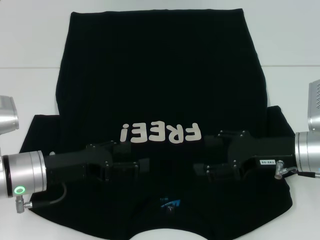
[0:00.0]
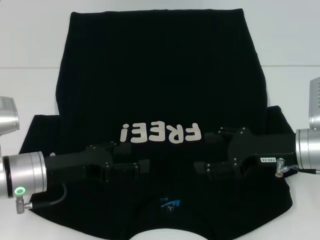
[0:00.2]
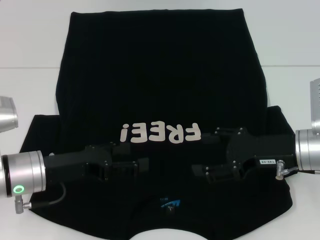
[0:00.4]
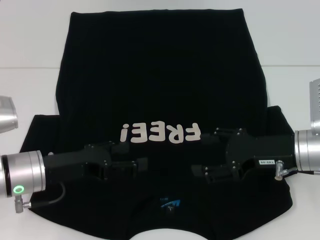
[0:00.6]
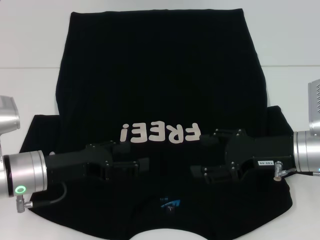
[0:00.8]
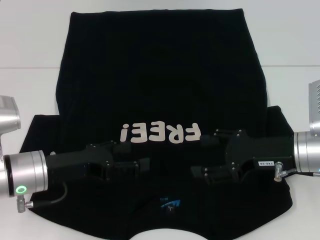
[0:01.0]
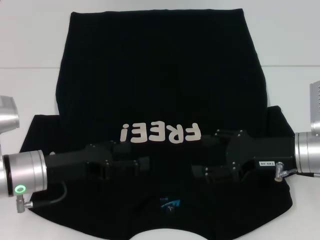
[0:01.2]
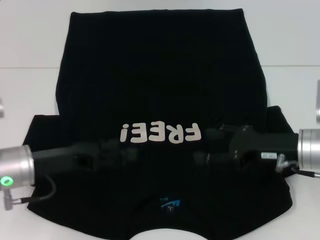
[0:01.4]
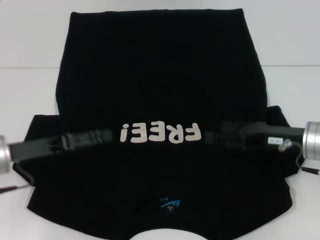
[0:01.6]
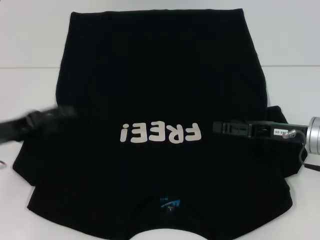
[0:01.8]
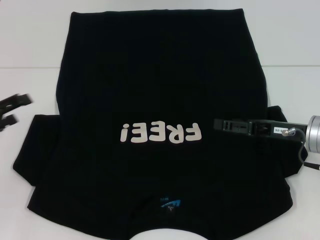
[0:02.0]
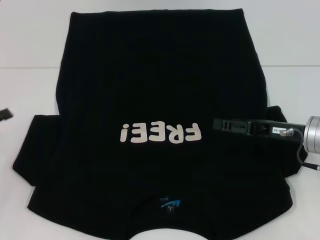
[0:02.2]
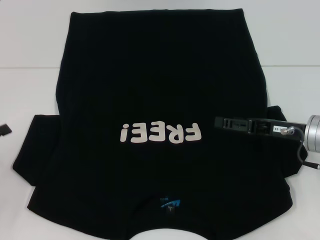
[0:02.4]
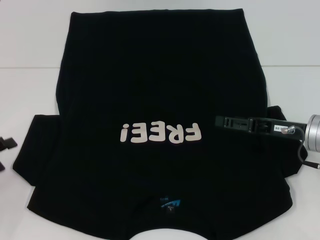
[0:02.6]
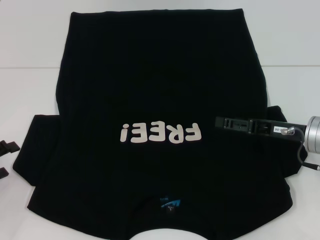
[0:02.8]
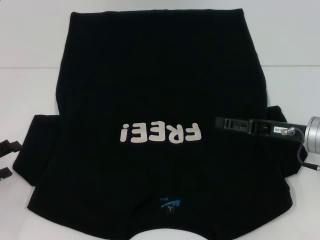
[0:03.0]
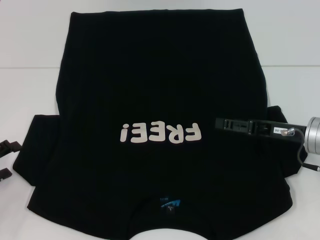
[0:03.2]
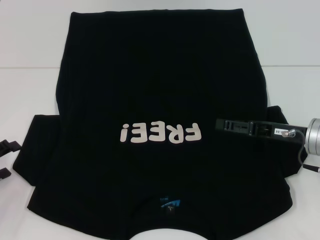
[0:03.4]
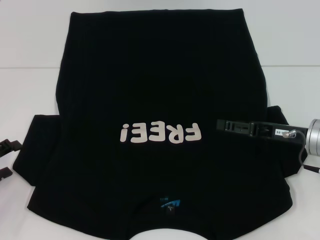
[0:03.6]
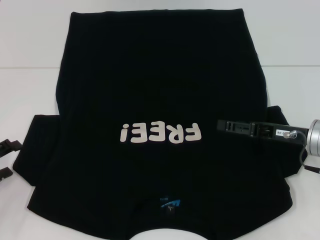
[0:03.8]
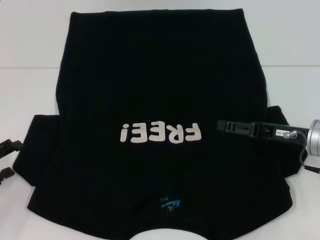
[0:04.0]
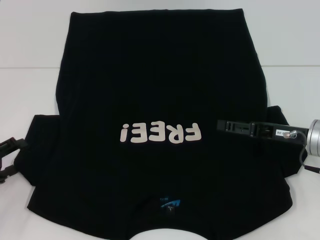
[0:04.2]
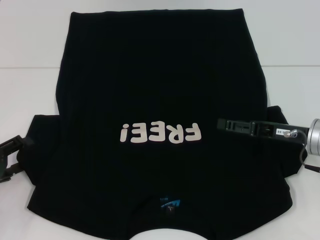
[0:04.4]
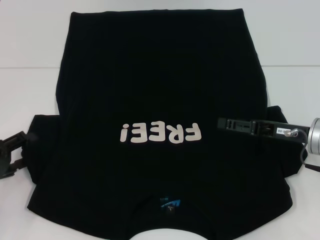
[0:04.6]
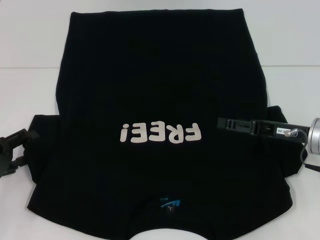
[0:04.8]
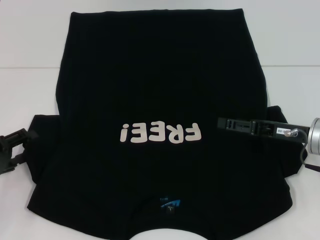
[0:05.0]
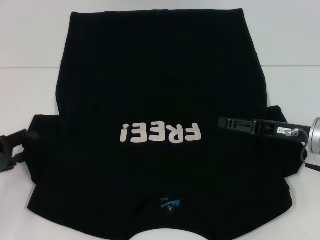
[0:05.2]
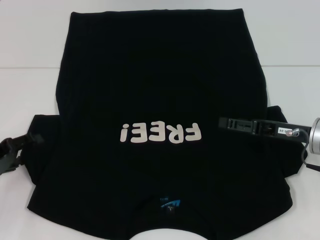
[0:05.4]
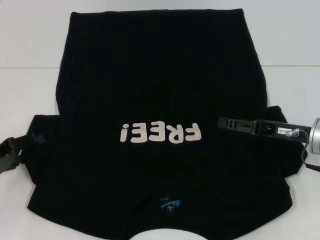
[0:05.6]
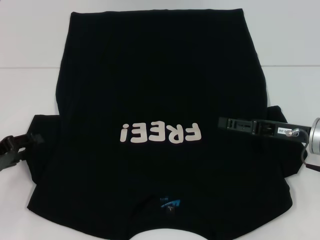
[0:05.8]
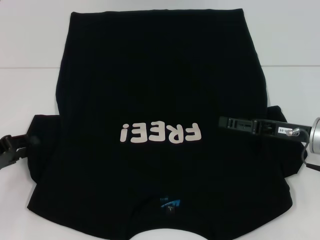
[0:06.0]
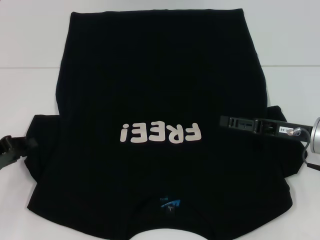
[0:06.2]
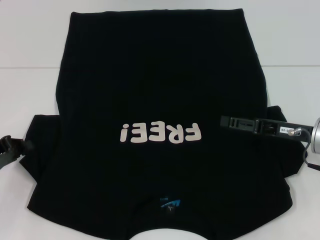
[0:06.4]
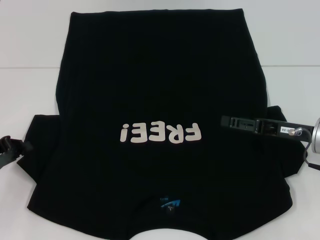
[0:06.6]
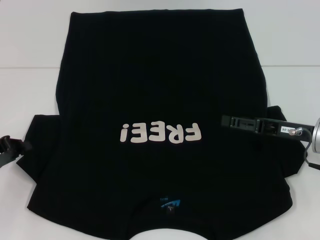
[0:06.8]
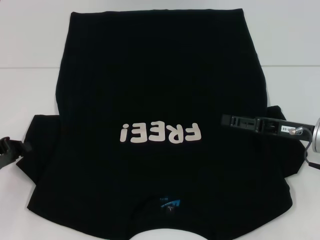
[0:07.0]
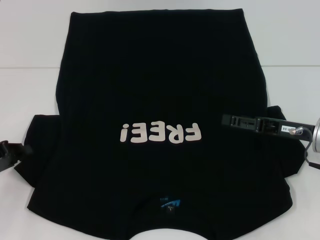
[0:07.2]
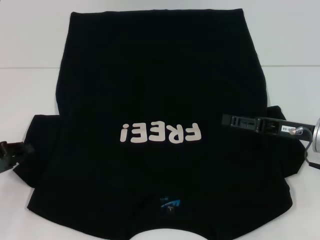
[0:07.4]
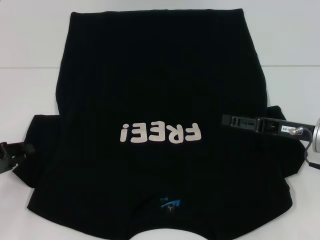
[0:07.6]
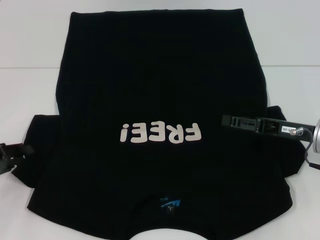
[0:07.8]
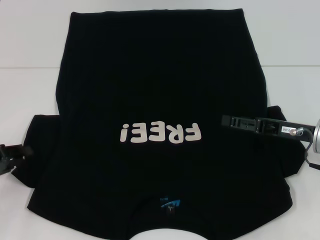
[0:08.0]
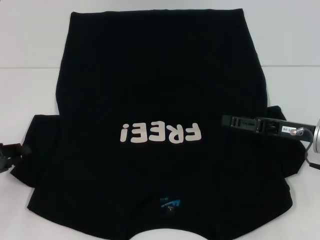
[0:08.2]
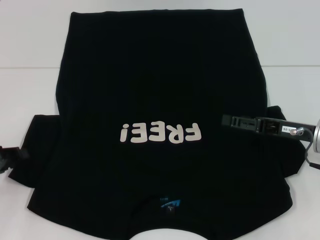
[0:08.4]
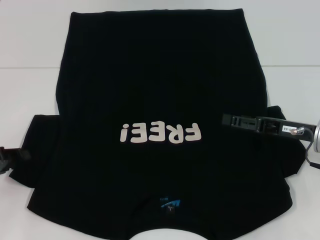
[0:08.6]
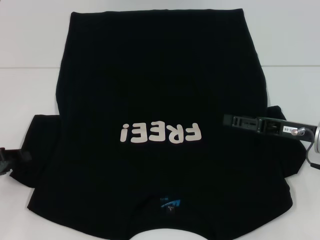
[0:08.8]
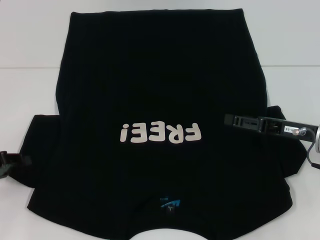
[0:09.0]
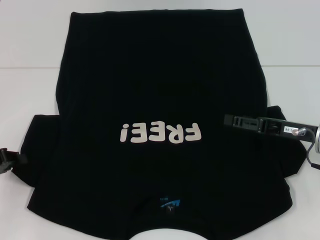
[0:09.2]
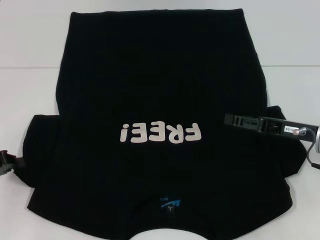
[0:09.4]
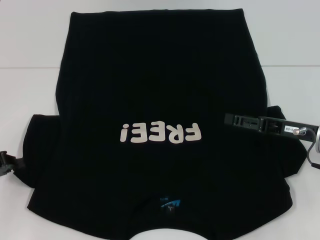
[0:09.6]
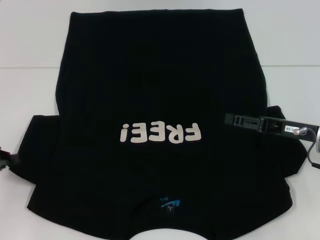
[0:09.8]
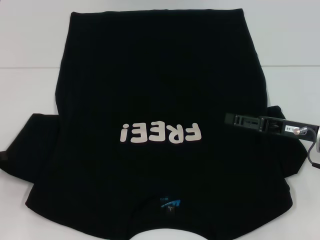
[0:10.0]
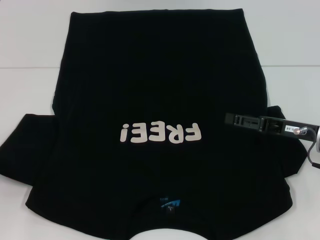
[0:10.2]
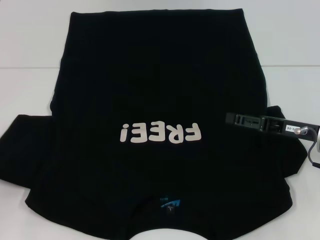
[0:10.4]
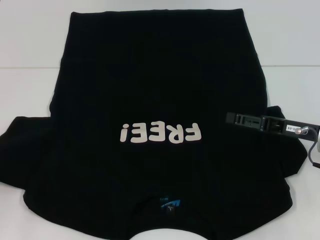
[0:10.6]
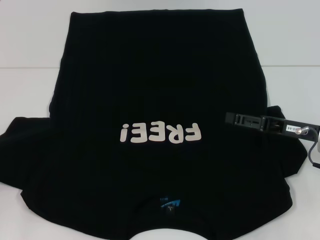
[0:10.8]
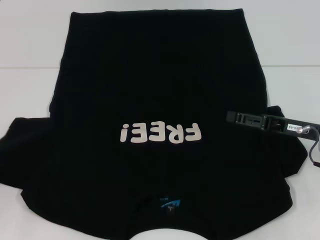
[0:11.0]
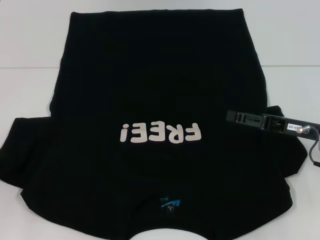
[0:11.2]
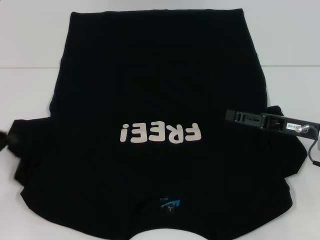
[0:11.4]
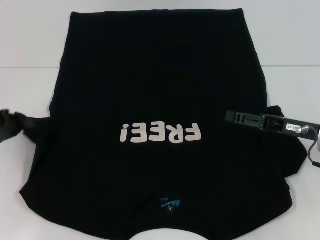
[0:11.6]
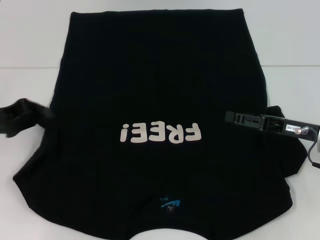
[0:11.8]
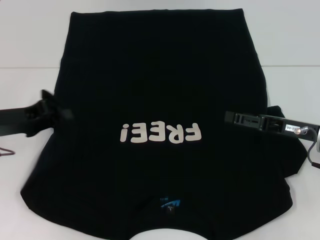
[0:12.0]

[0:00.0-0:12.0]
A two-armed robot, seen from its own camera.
0:00.0 to 0:01.6: The left gripper moves to the left, some 5 cm.
0:01.6 to 0:03.0: The left gripper goes roughly 10 cm to the left and backward.
0:03.0 to 0:06.0: The grippers move only a little.
0:06.0 to 0:07.6: The left gripper closes its fingers.
0:07.6 to 0:09.0: The grippers move only a little.
0:09.0 to 0:10.4: The left gripper closes its fingers.
0:10.4 to 0:12.0: The left gripper is displaced to the right and forward by some 10 cm.

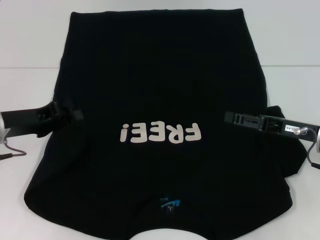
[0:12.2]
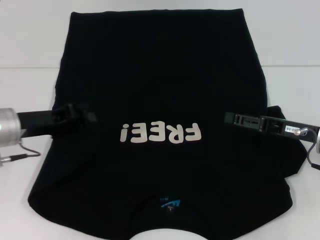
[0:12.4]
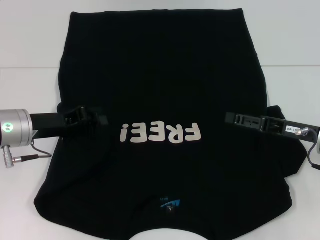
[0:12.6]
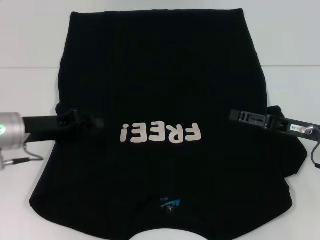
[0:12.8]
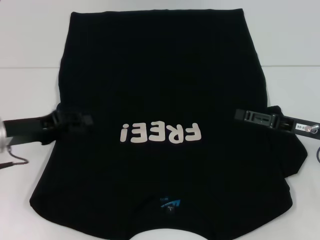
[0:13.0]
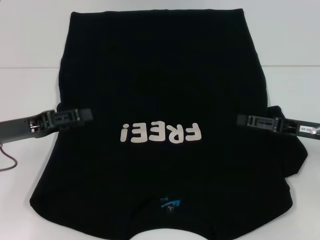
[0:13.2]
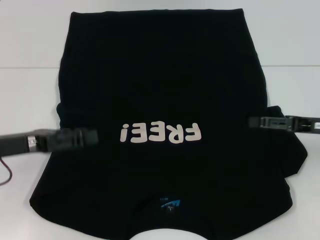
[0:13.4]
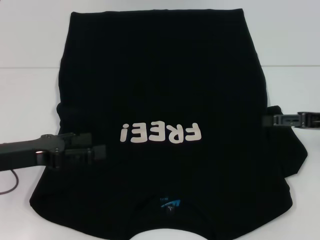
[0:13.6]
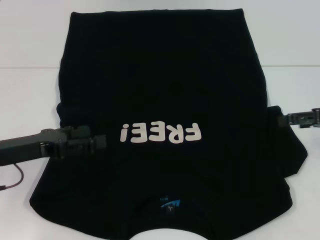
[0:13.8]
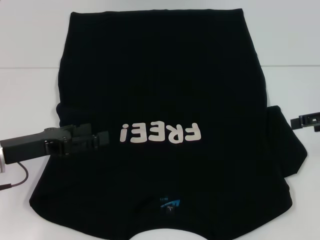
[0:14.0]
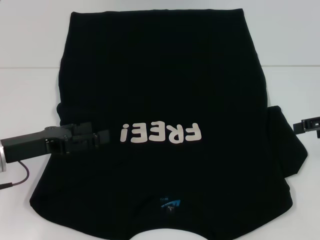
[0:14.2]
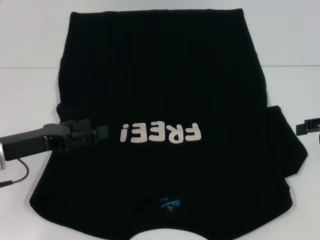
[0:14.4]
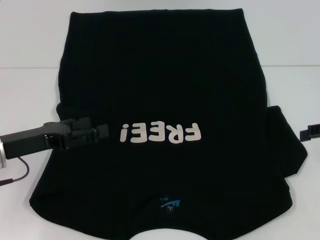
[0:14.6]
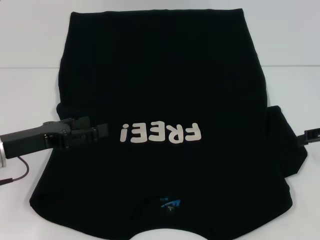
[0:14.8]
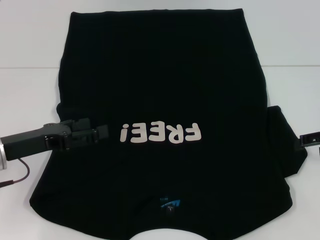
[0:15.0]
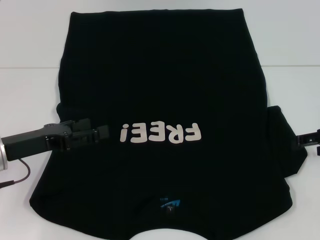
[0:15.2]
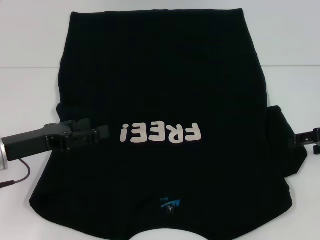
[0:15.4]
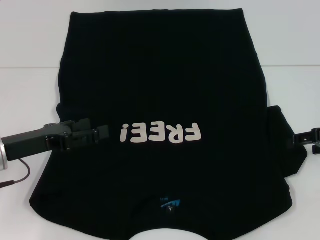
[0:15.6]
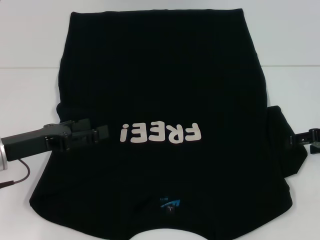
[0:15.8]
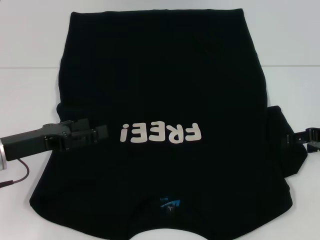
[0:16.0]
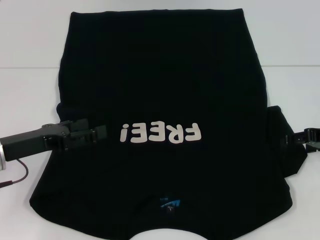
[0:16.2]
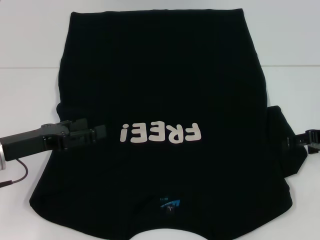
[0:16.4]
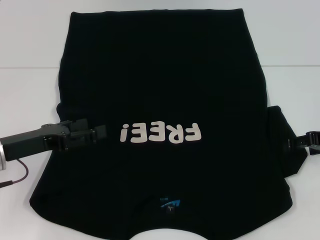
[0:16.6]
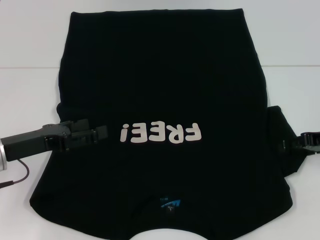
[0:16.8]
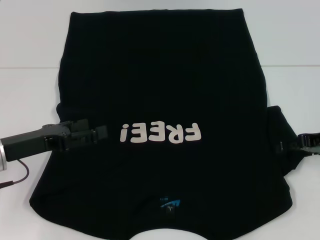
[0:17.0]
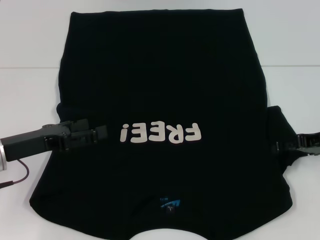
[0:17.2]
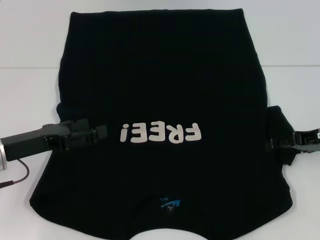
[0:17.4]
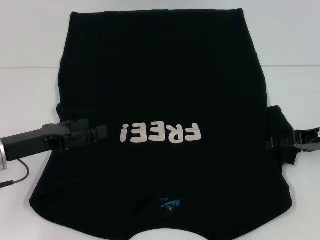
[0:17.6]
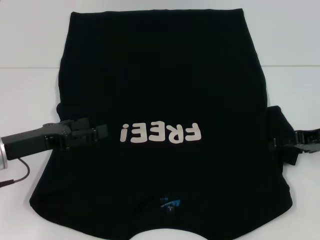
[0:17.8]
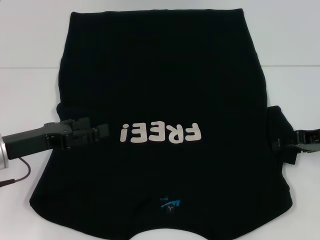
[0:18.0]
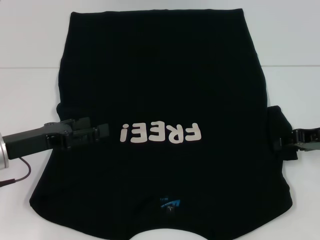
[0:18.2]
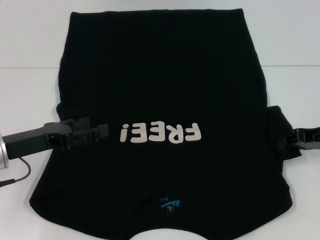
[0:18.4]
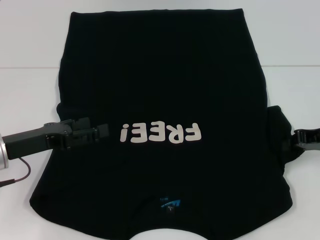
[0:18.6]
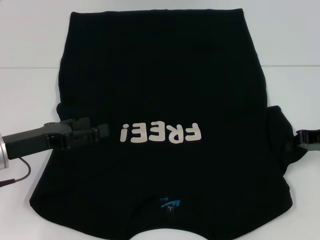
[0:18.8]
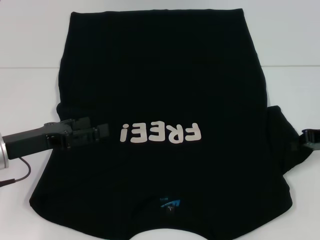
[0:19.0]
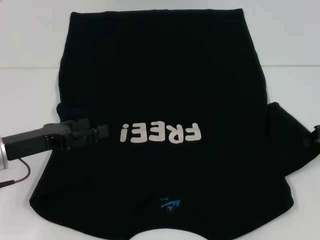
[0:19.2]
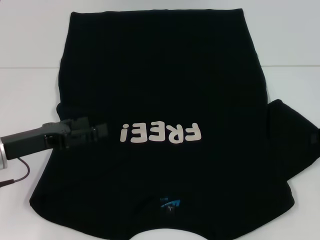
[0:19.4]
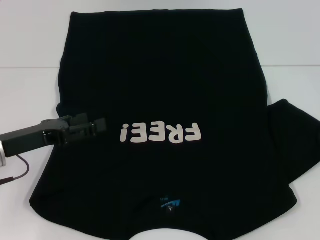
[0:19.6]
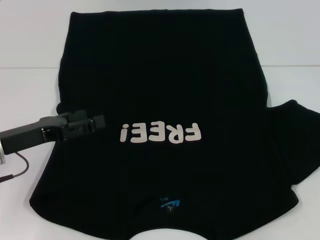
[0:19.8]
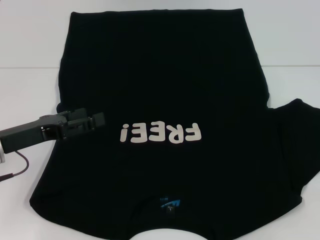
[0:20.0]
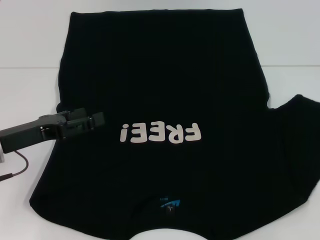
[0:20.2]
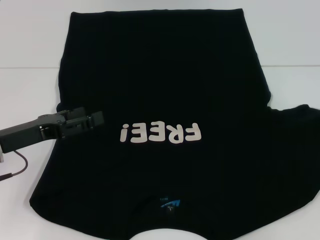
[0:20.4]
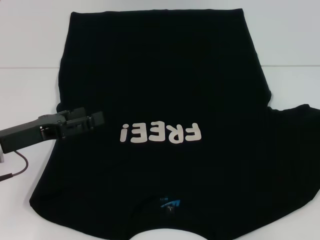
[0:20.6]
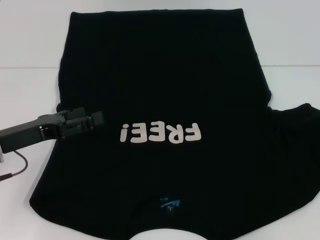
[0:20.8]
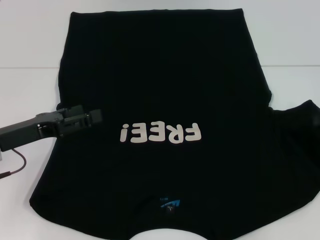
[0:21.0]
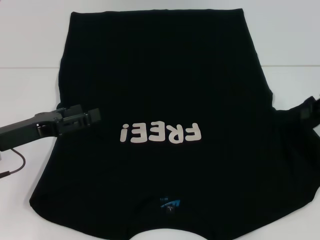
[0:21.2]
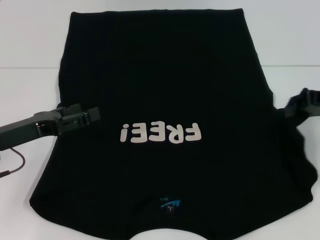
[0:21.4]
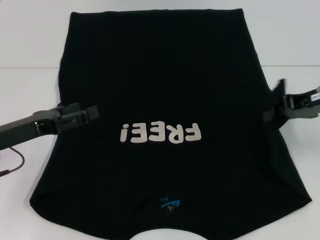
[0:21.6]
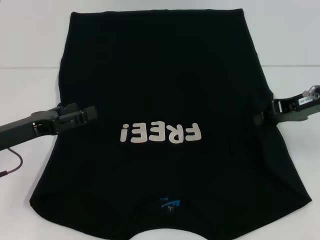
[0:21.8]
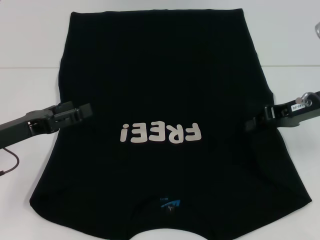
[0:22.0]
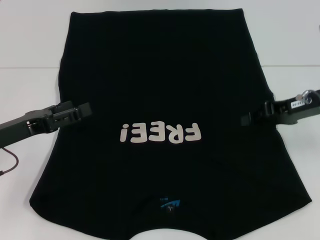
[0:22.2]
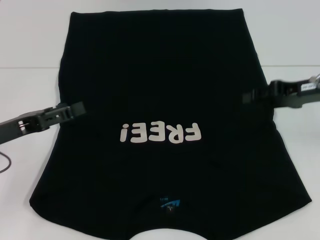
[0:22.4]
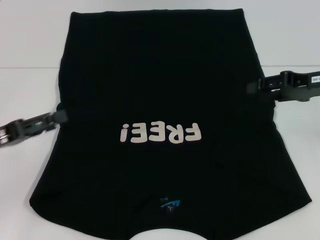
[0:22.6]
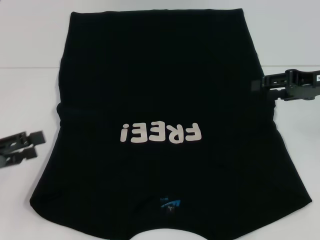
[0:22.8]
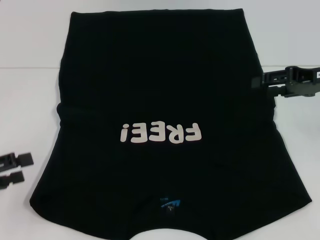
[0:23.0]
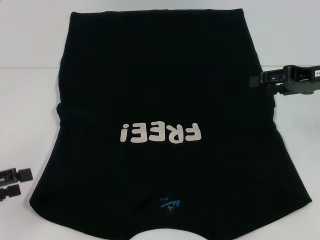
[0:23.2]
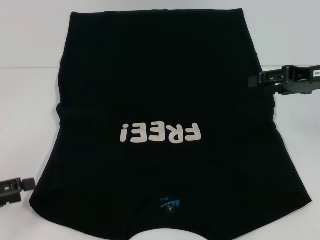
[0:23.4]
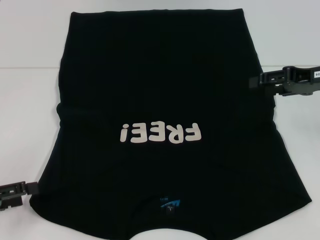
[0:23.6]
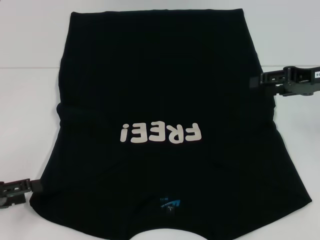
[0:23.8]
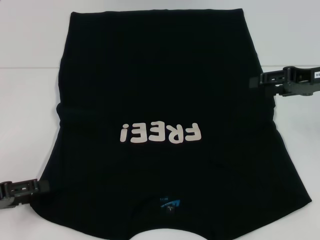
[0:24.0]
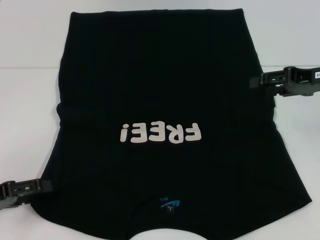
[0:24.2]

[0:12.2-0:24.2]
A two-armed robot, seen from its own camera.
Step, 0:13.2 to 0:21.8: Fold the bottom right sleeve with your right hand.
0:12.2 to 0:13.8: The left gripper opens its fingers; the right gripper is displaced upward and to the right by approximately 10 cm.
0:13.8 to 0:15.2: The grippers move only a little.
0:16.6 to 0:18.2: The grippers move only a little.
0:18.2 to 0:19.8: The right gripper shifts some 5 cm to the right, and closes.
0:19.8 to 0:21.2: The right gripper changes place by some 5 cm.
0:21.2 to 0:22.6: The right gripper opens.
0:22.6 to 0:24.2: The left gripper ends up about 5 cm from where it was.
